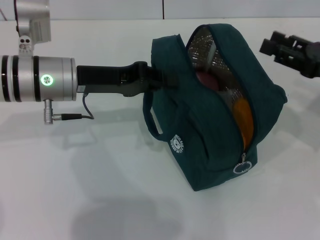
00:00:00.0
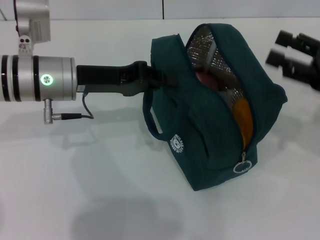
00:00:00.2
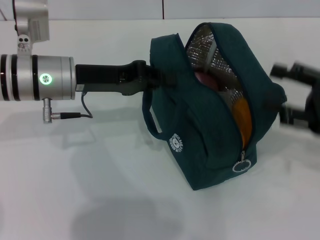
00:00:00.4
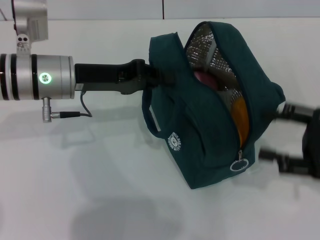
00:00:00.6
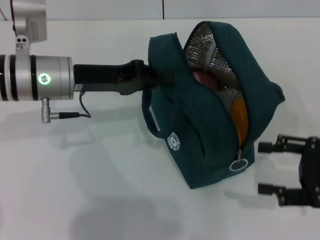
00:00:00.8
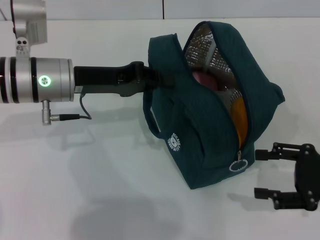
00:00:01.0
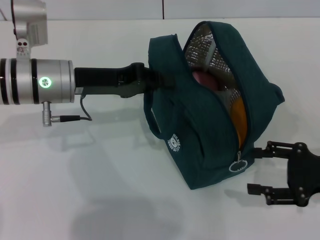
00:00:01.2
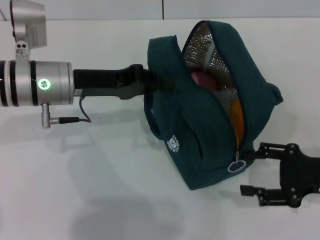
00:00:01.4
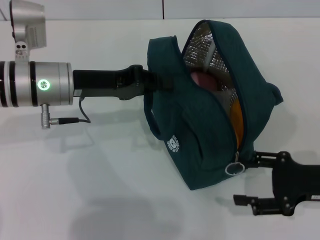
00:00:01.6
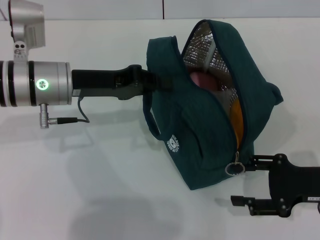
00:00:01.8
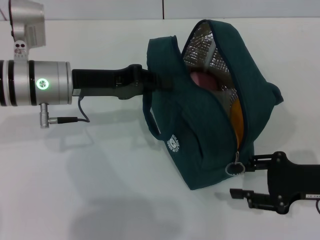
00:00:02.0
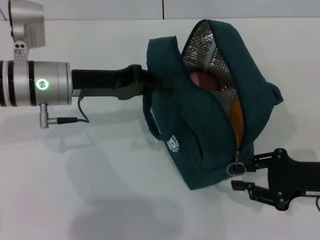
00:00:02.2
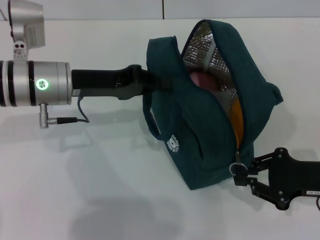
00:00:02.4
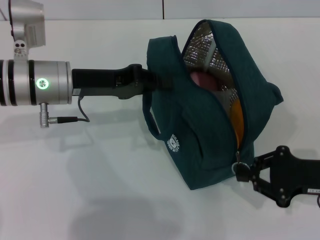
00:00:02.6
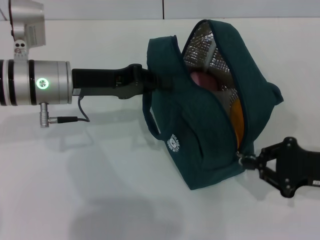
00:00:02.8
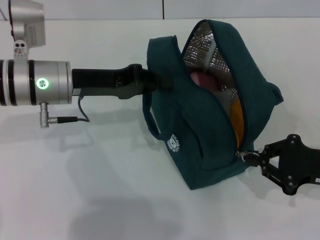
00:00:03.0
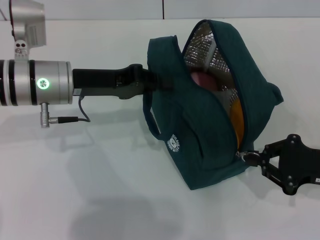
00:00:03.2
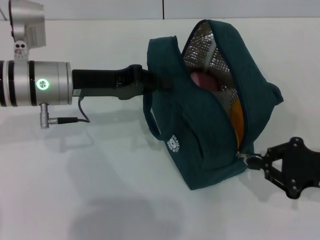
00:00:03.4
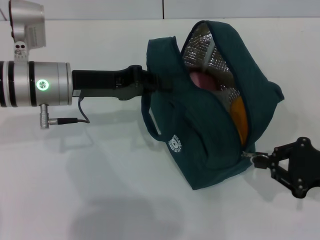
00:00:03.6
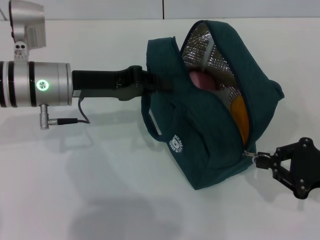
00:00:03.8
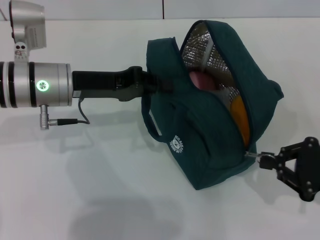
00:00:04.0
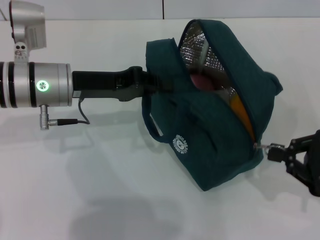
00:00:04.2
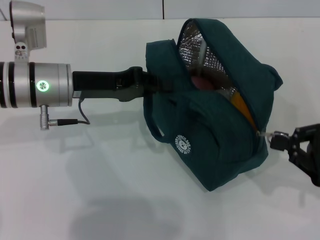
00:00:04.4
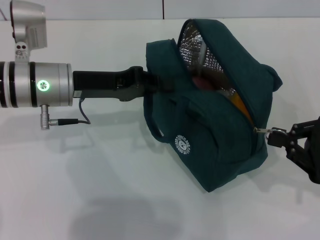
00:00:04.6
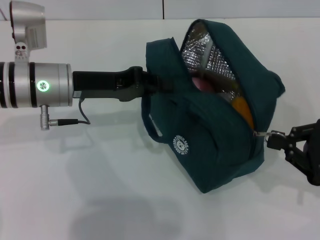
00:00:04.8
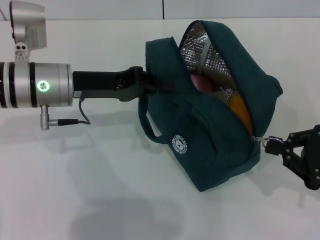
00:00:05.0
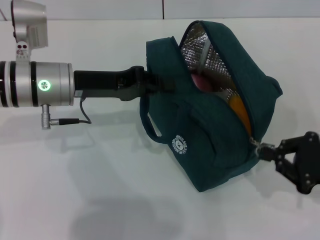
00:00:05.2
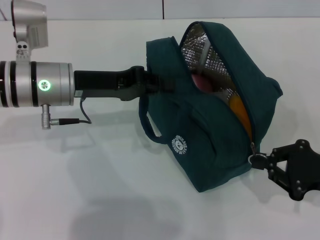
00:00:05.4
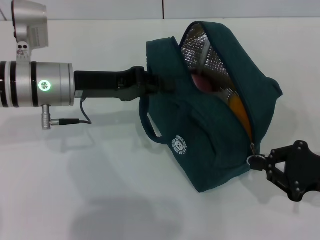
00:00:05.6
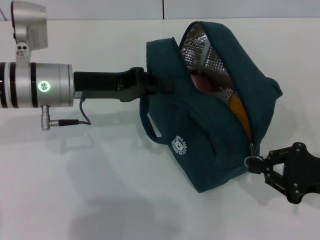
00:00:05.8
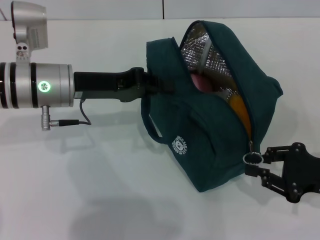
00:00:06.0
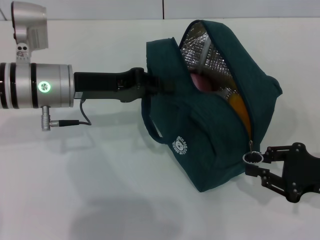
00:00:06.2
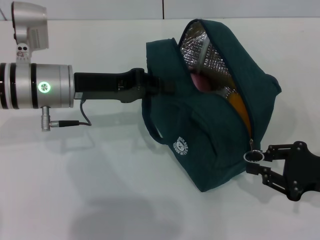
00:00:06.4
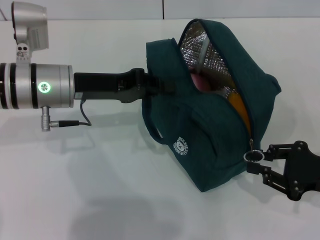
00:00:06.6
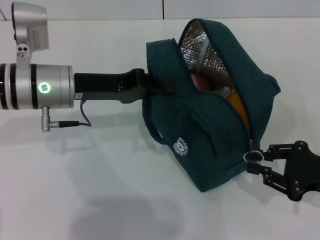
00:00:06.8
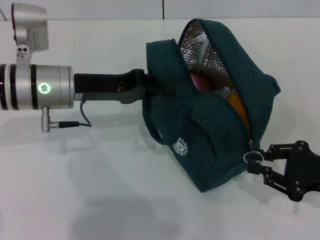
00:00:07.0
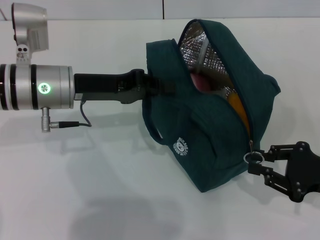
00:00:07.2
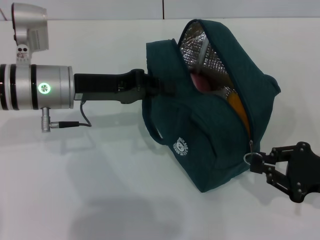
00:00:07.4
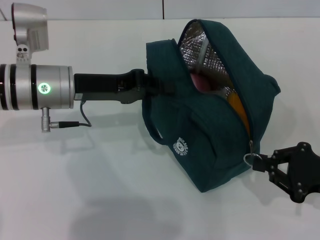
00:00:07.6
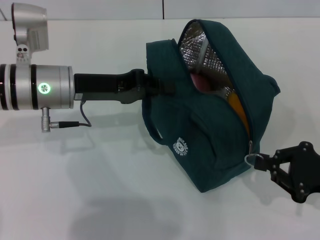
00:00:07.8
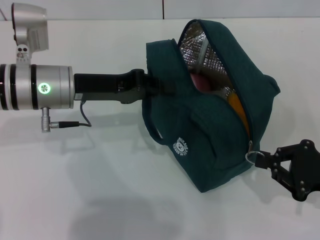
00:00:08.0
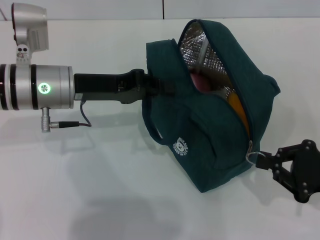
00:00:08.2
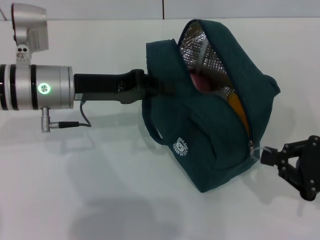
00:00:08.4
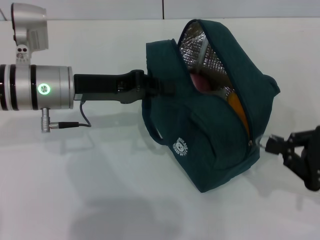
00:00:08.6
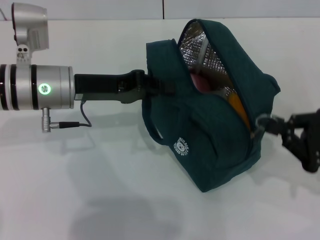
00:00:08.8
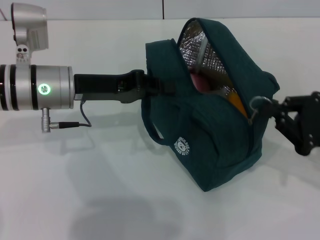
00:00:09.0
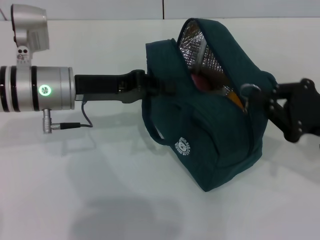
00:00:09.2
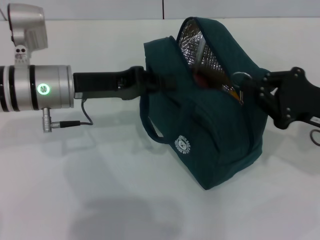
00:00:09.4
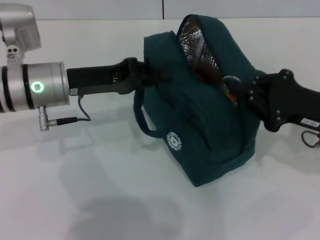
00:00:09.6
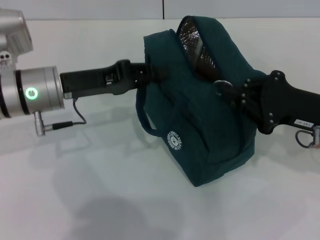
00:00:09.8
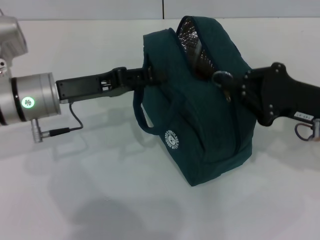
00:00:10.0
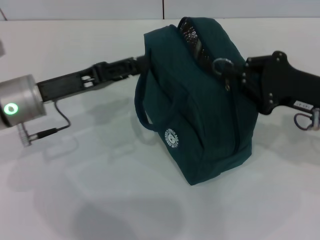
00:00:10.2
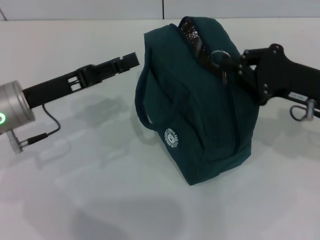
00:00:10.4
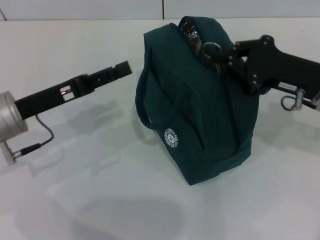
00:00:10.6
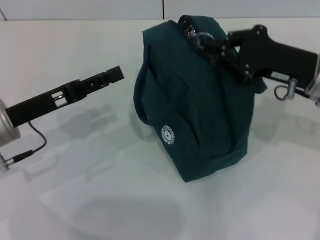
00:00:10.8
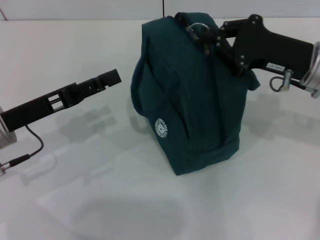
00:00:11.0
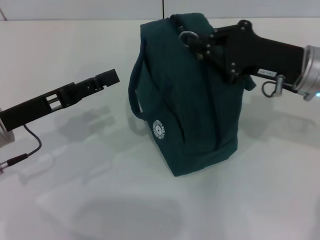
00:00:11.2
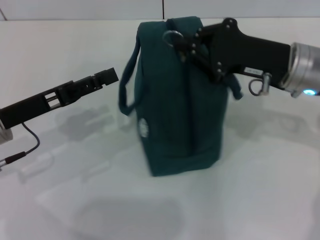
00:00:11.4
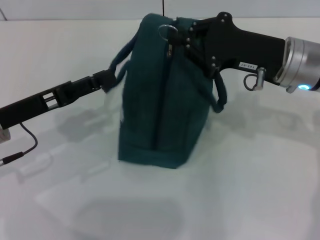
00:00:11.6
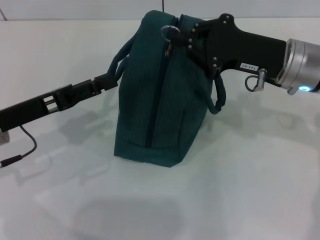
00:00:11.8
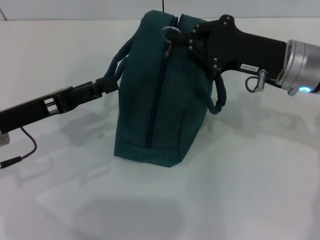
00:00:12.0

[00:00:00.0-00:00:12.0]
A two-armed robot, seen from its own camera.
Step, 00:00:00.2 to 00:00:10.6: Hold the lunch bag with your left hand.
00:00:00.0 to 00:00:01.6: The right gripper heads backward and downward, covering some 10 cm, and opens.
00:00:01.6 to 00:00:03.0: The right gripper closes up.
00:00:03.0 to 00:00:06.0: The grippers move only a little.
00:00:06.0 to 00:00:07.6: Both grippers stay about where they are.
00:00:07.6 to 00:00:09.0: The grippers move only a little.
00:00:09.0 to 00:00:10.4: The left gripper moves to the left, approximately 5 cm, and opens its fingers; the right gripper heads forward and to the left, covering some 10 cm.
00:00:10.4 to 00:00:12.0: The right gripper travels to the left by approximately 5 cm.

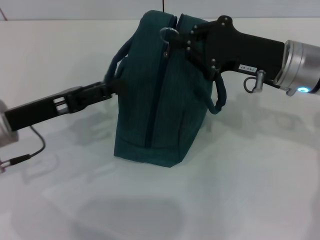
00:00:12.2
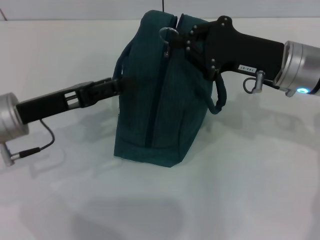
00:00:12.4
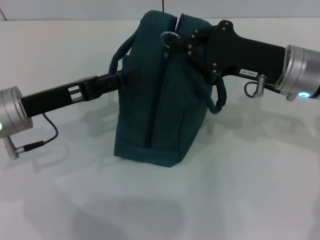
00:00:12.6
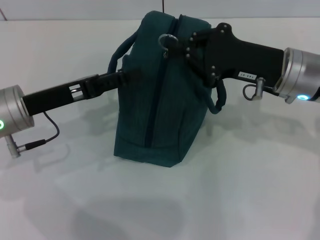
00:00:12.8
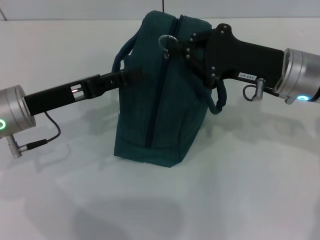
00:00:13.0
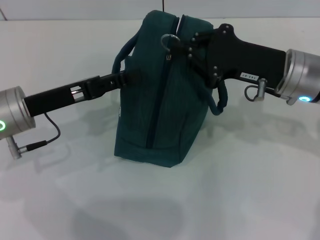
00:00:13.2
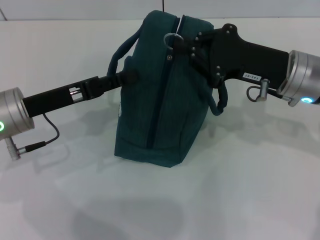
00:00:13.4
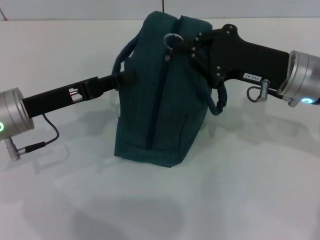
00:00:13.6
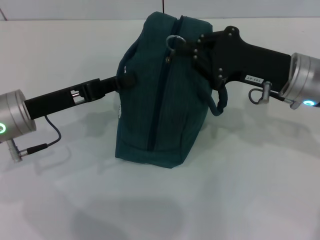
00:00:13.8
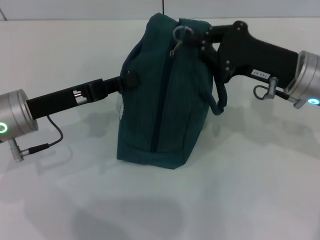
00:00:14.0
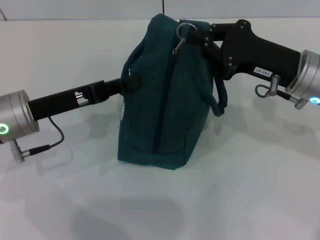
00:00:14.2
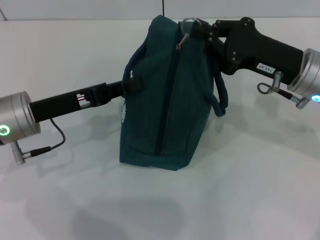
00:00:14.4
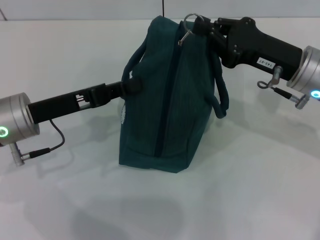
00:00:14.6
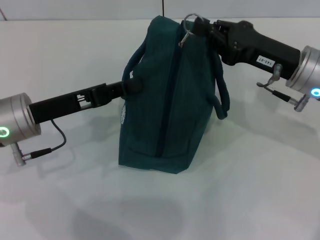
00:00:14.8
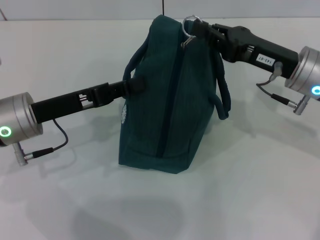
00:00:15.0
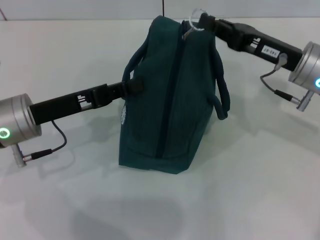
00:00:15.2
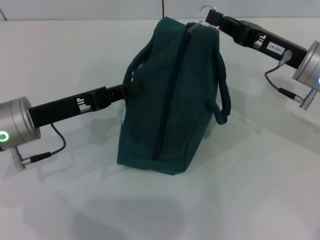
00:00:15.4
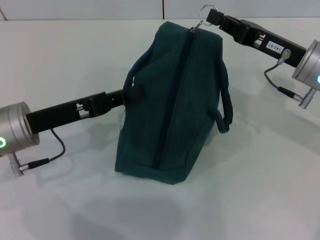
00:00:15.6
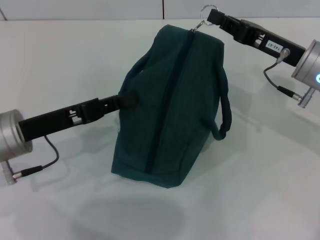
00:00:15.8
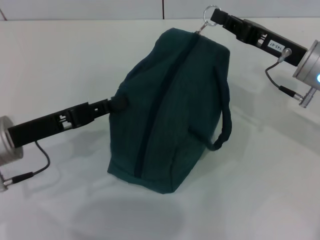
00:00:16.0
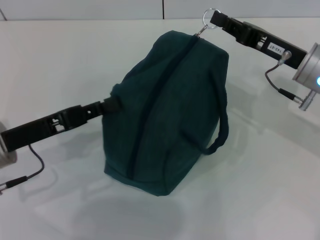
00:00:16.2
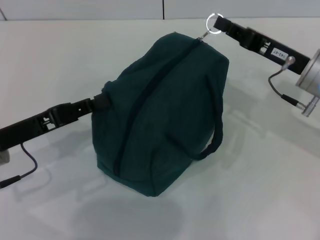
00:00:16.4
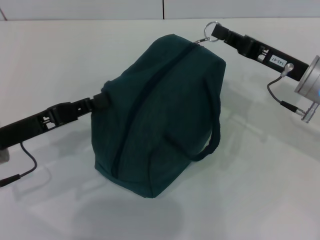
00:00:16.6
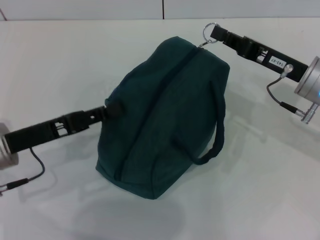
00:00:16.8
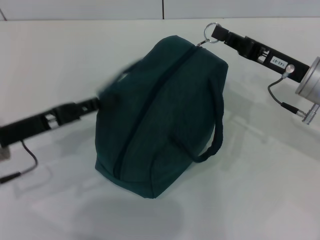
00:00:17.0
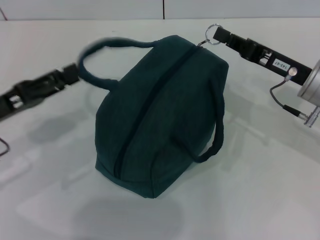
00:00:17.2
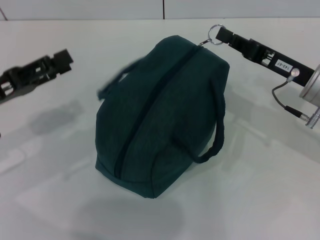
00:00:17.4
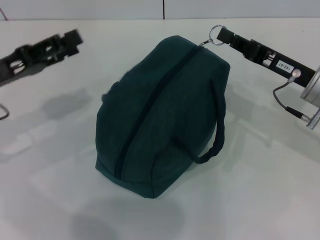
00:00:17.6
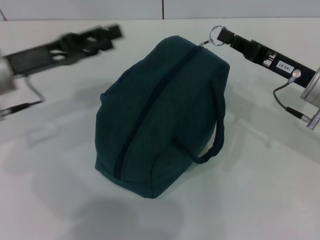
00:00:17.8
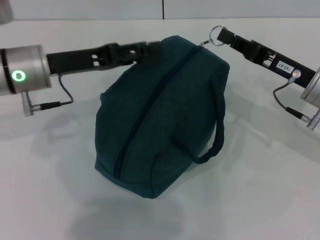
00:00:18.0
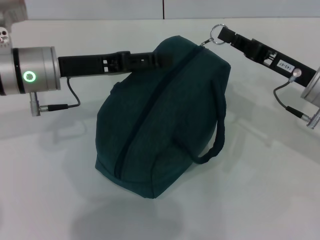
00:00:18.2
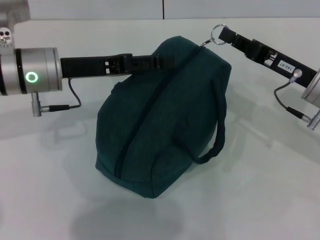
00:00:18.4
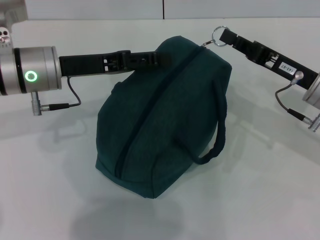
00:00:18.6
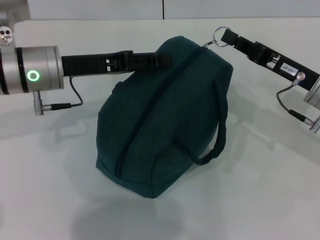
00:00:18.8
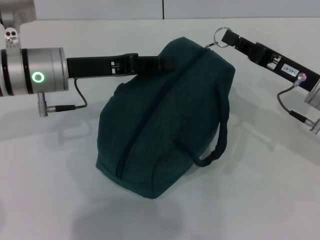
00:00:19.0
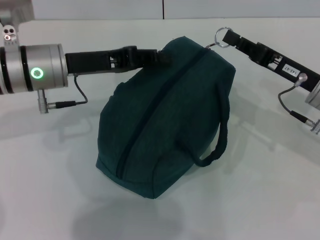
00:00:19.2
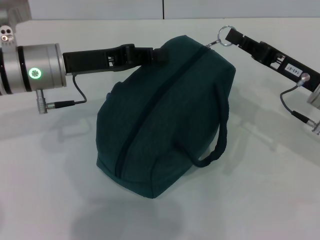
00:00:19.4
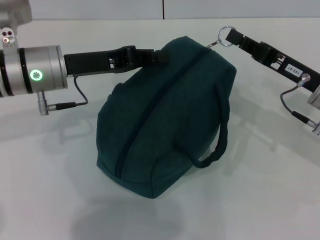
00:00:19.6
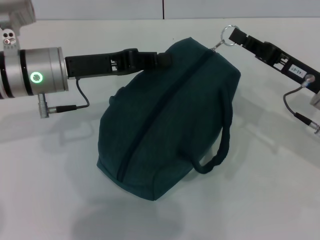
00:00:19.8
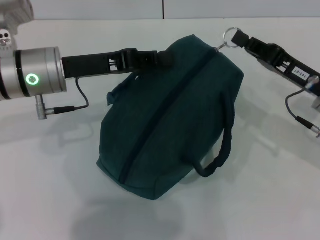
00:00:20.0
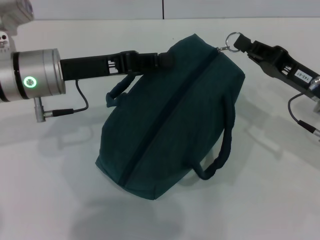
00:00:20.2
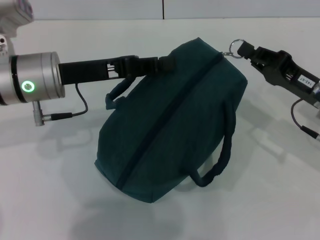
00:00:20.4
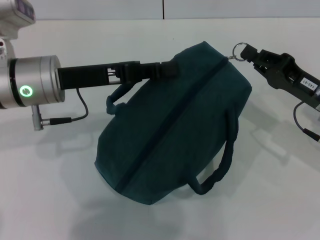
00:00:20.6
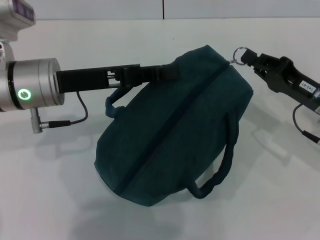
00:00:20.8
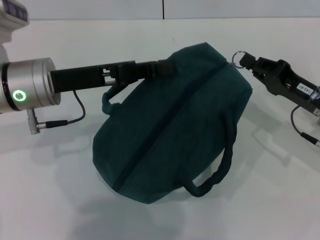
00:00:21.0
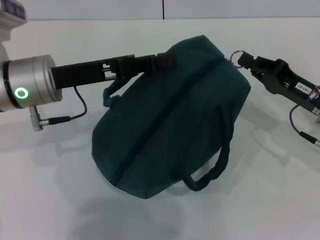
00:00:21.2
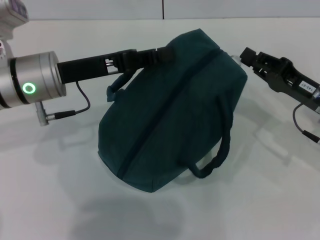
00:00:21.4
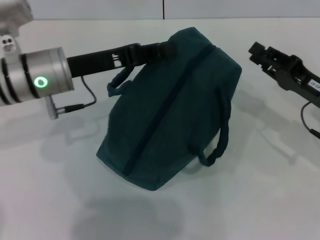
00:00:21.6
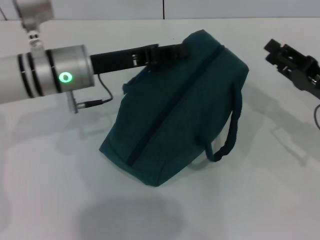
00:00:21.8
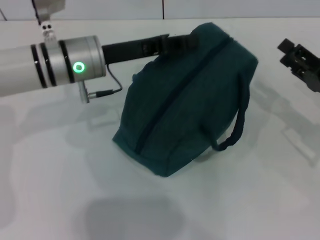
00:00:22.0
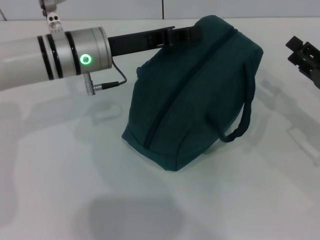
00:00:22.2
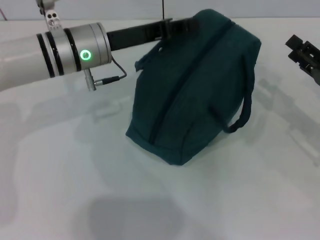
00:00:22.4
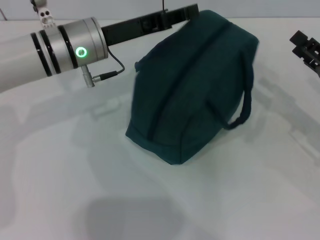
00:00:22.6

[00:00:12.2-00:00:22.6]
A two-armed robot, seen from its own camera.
Step, 00:00:12.2 to 00:00:22.2: Zip up the lunch bag with your right hand.
00:00:12.2 to 00:00:13.6: The left gripper closes its fingers.
00:00:13.6 to 00:00:15.2: The left gripper closes up.
00:00:15.2 to 00:00:16.6: The left gripper moves approximately 5 cm.
00:00:16.6 to 00:00:18.2: The left gripper moves forward and to the right, roughly 10 cm, and opens its fingers.
00:00:18.2 to 00:00:19.6: The left gripper closes.
00:00:21.2 to 00:00:22.6: The right gripper heads to the right, covering roughly 5 cm, and opens up, while the left gripper travels forward and to the right by roughly 10 cm.
